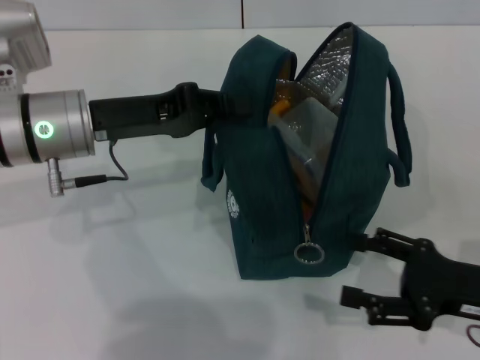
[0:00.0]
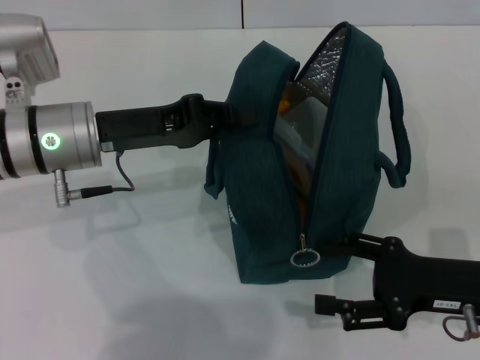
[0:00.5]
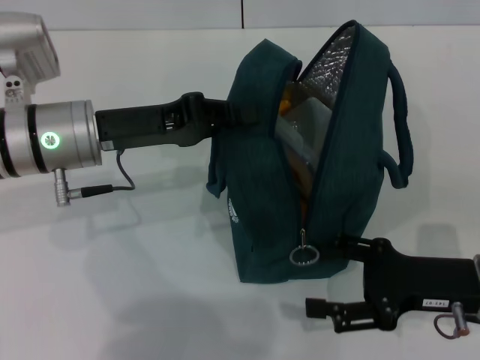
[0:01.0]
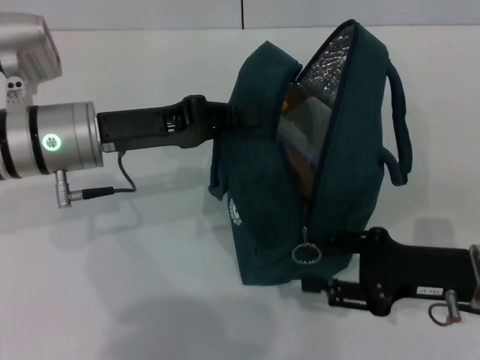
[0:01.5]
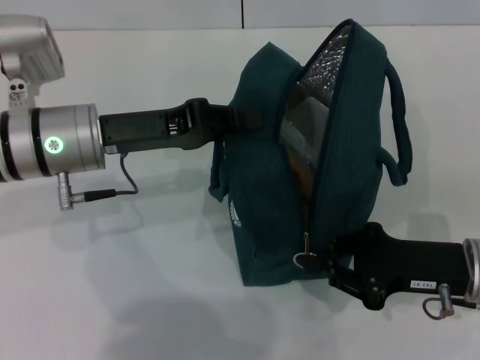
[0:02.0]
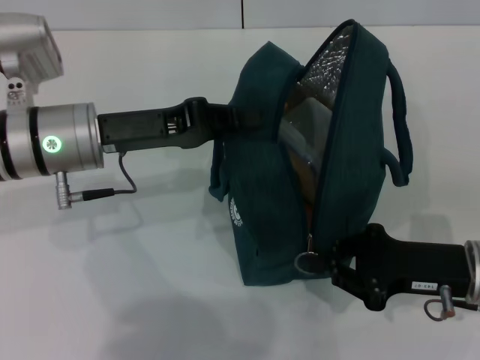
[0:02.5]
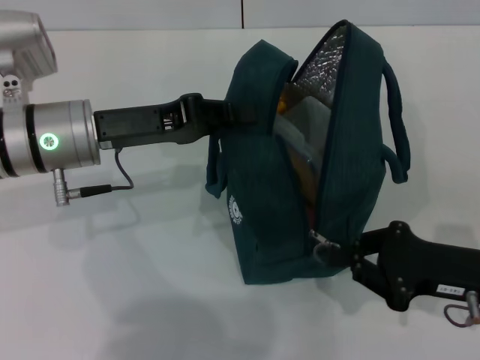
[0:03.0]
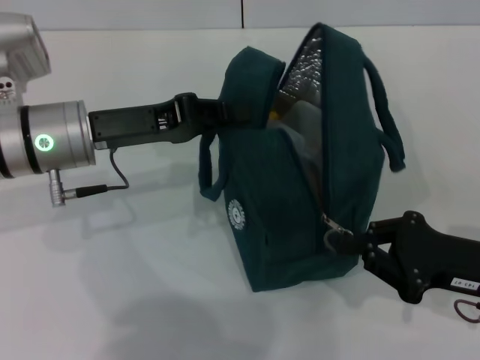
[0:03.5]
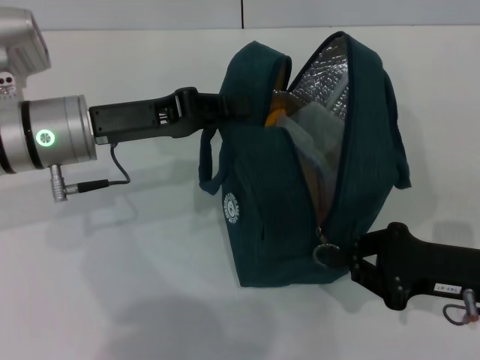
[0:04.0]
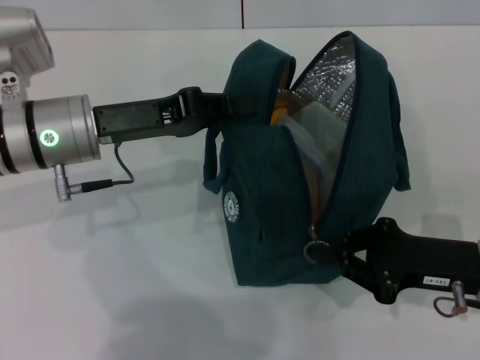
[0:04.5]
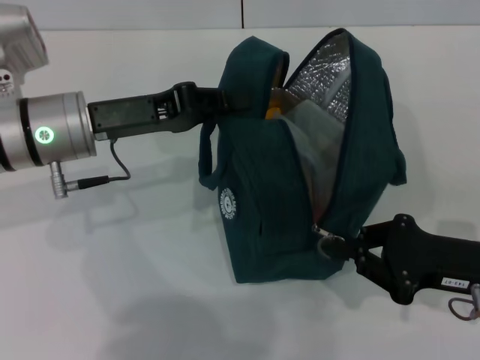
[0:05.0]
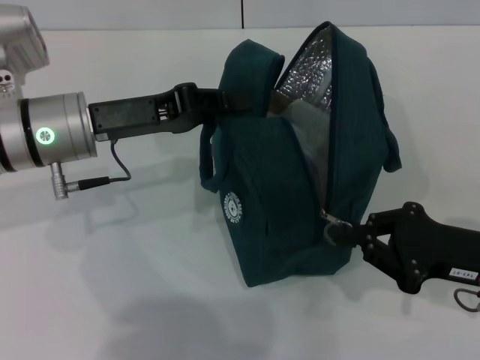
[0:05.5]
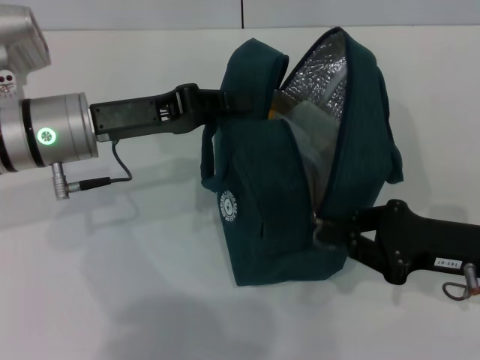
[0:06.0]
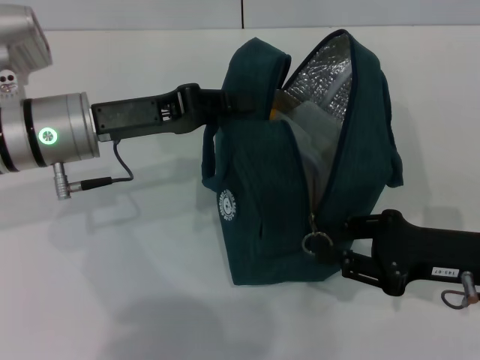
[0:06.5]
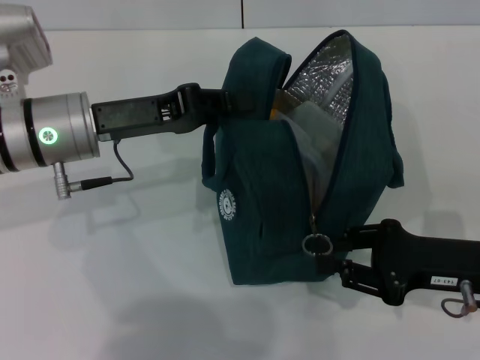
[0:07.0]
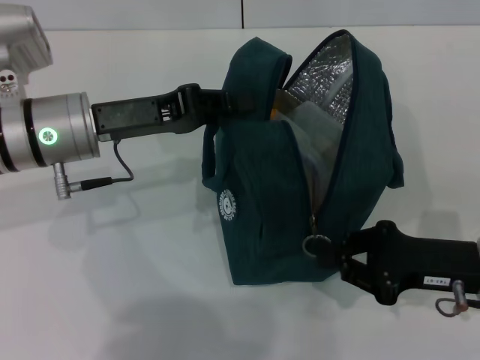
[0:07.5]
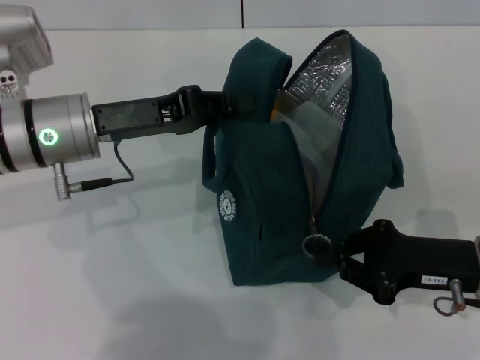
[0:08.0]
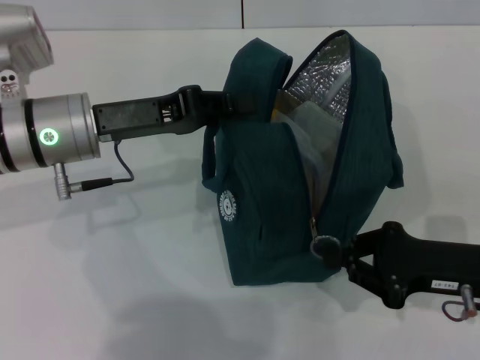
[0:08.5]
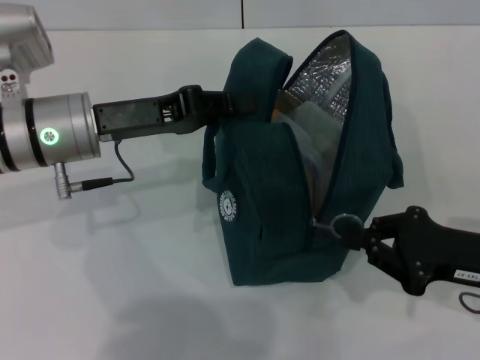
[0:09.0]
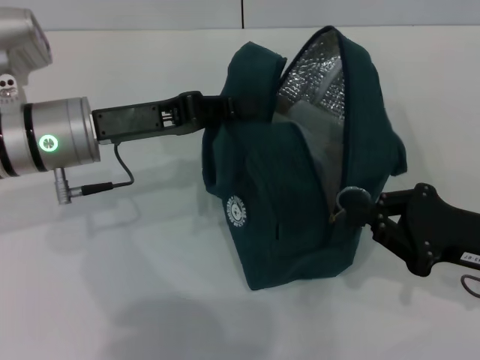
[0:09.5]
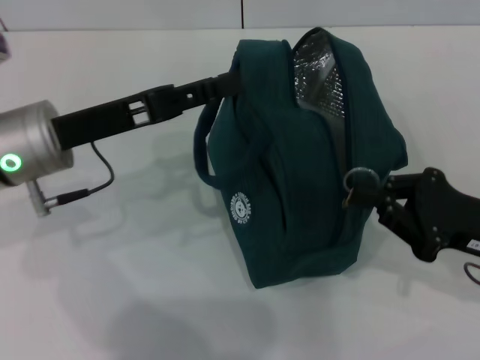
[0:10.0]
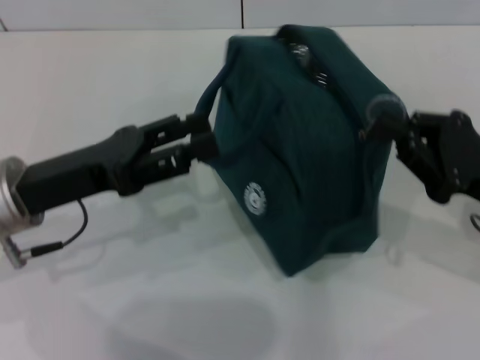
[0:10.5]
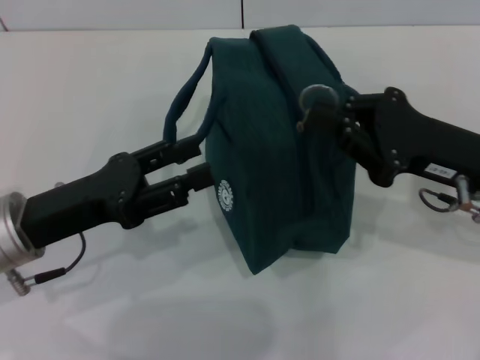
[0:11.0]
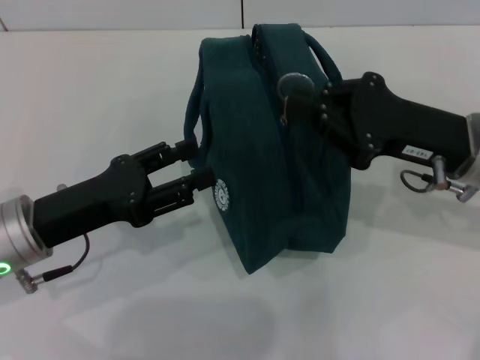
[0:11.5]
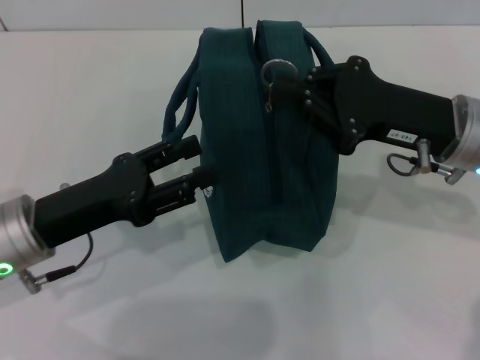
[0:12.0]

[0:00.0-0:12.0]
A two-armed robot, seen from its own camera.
Step, 0:00.0 to 0:09.5: Hold the lunch bag with your left hand.
0:00.0 to 0:02.0: The right gripper changes place by roughly 5 cm, and closes up.
0:02.0 to 0:08.0: There are only small adjustments of the grippers.
0:10.0 to 0:12.0: The left gripper is displaced backward and downward by approximately 10 cm, and opens its fingers. Meanwhile the right gripper moves forward, to the left and upward, some 10 cm.

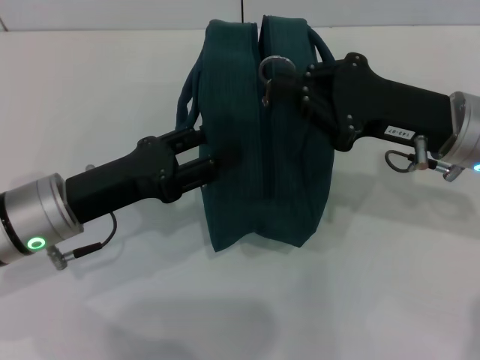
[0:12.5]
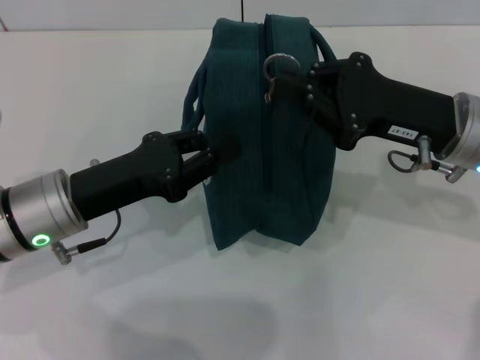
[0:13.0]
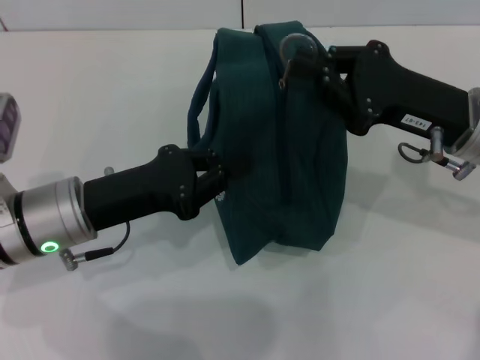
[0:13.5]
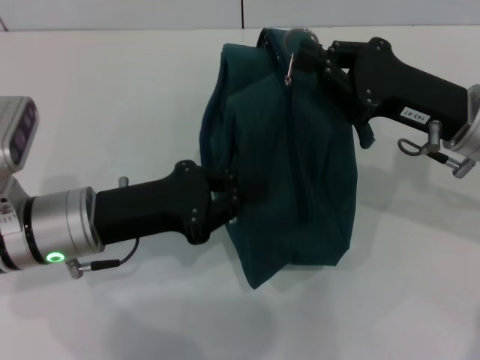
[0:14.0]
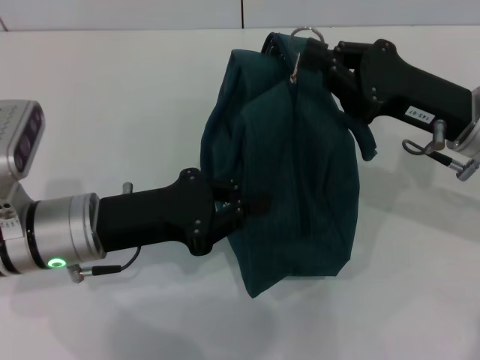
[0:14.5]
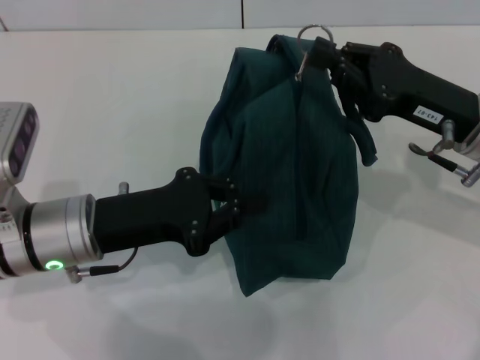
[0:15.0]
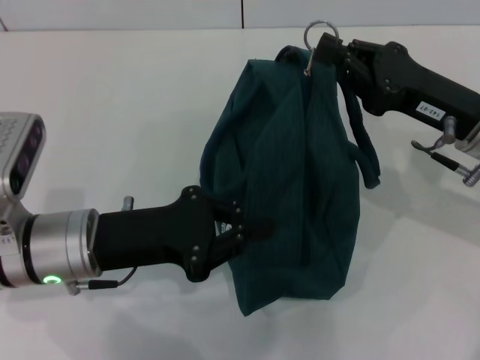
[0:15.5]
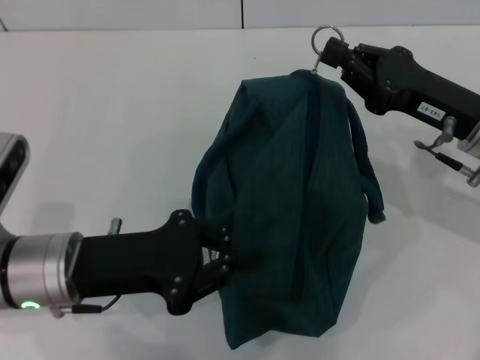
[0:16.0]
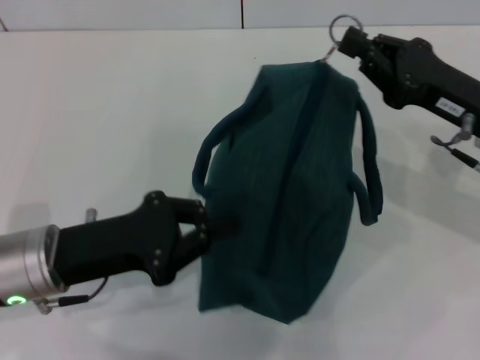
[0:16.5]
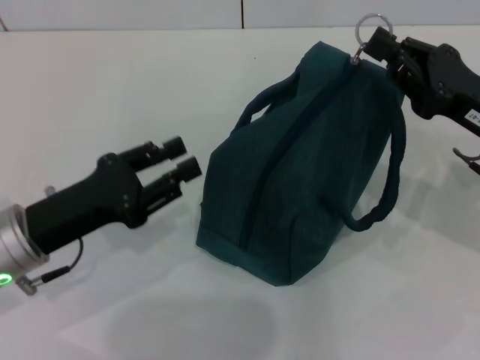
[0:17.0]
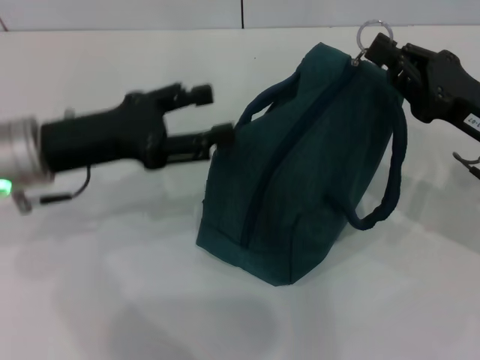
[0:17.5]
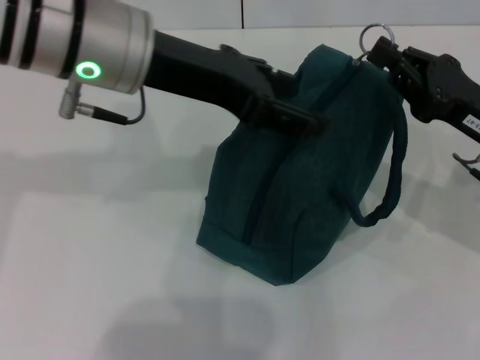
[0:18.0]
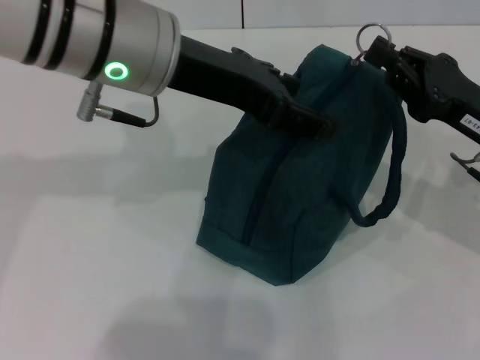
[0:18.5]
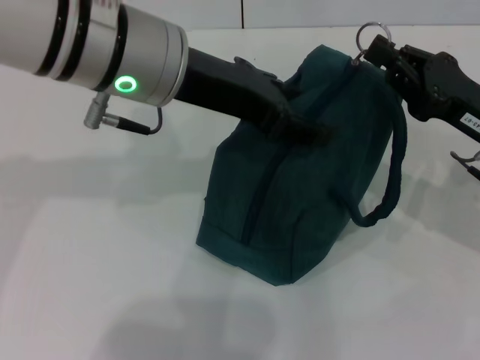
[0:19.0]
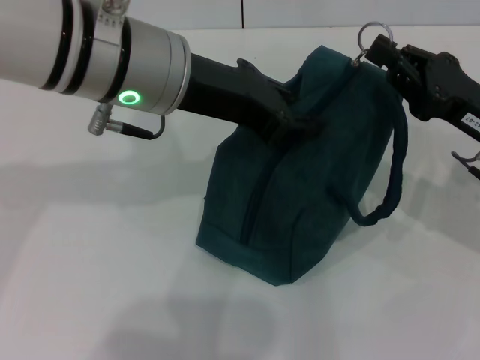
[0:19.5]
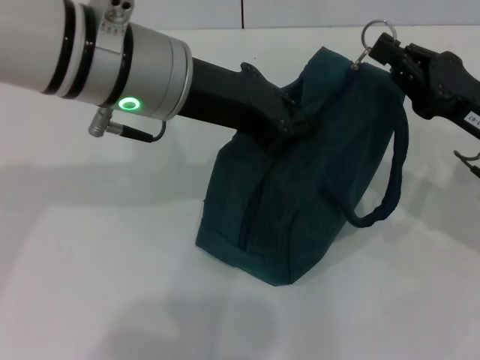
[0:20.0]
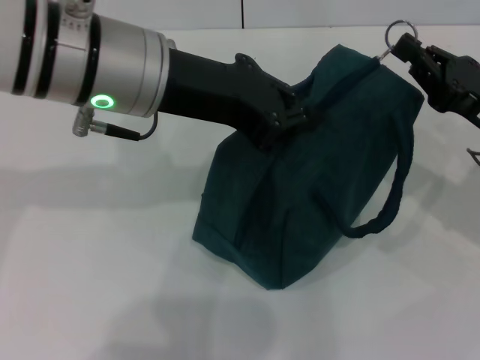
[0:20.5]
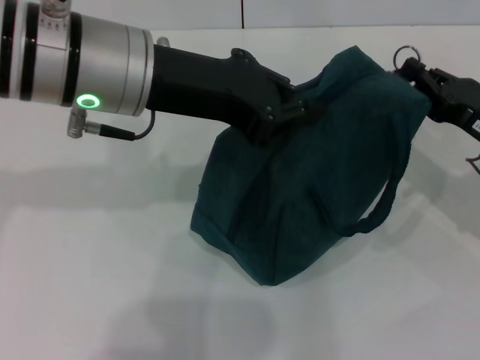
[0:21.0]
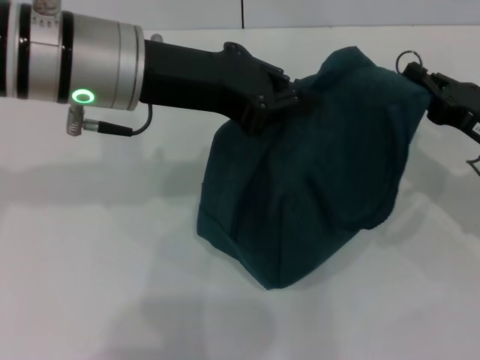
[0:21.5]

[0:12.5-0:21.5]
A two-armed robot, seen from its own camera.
Step, 0:12.5 to 0:21.5: Zip up the lunch bag with your right hand.
0:12.5 to 0:14.5: The left gripper closes.
0:14.5 to 0:17.0: The left gripper shifts by roughly 5 cm.
0:17.0 to 0:19.5: The left gripper shifts about 25 cm upward, to the right and forward, and opens its fingers.
0:19.5 to 0:21.5: The left gripper closes its fingers.

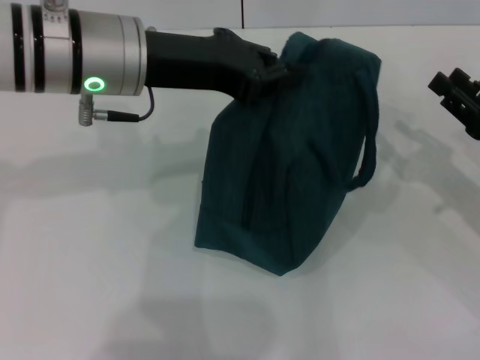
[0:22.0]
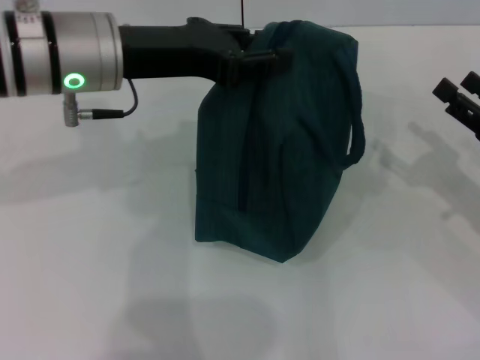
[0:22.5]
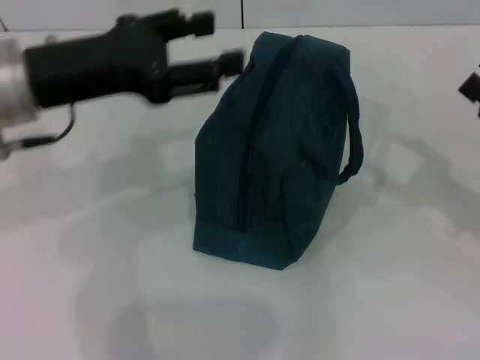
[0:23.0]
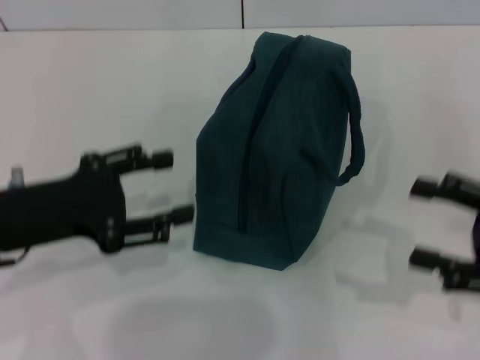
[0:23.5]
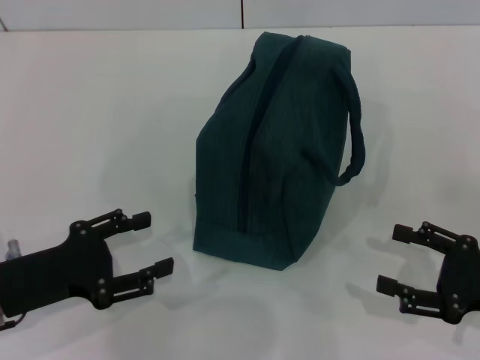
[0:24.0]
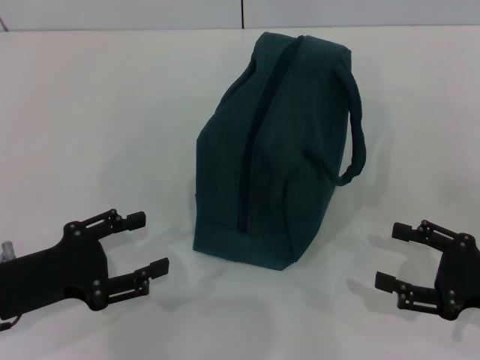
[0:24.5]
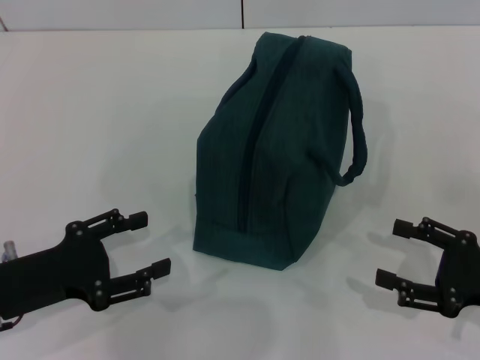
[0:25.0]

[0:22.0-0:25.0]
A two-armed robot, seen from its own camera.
0:22.0 to 0:23.5: The right gripper goes approximately 5 cm backward, and opens. Meanwhile the left gripper travels to the left, backward and downward by roughly 20 cm, and opens.
0:23.5 to 0:25.0: The two grippers go some 5 cm downward.
